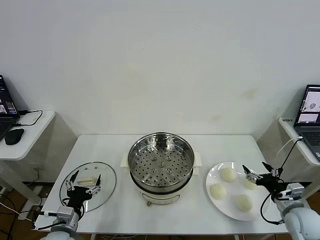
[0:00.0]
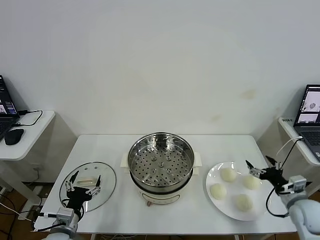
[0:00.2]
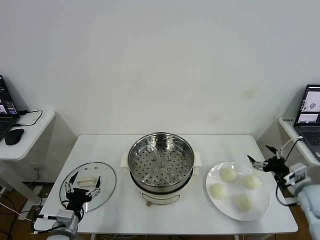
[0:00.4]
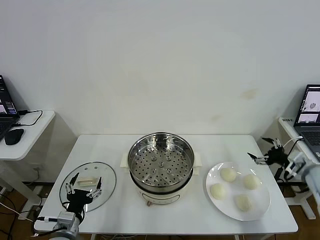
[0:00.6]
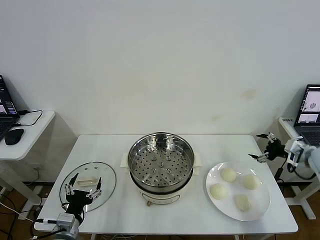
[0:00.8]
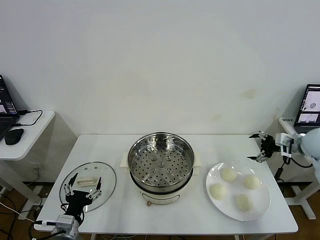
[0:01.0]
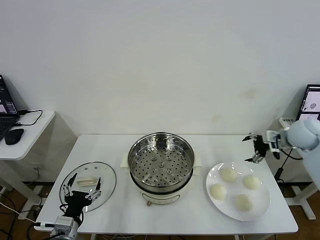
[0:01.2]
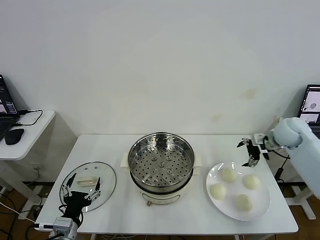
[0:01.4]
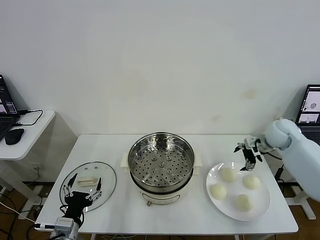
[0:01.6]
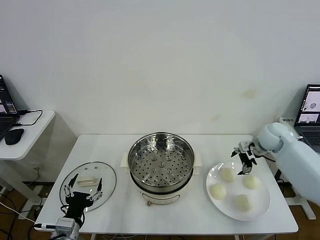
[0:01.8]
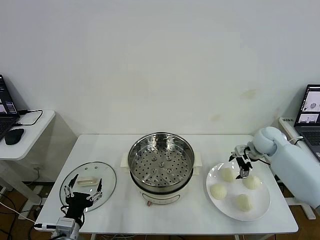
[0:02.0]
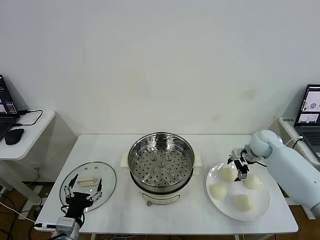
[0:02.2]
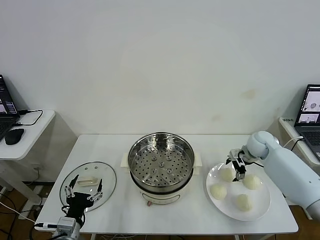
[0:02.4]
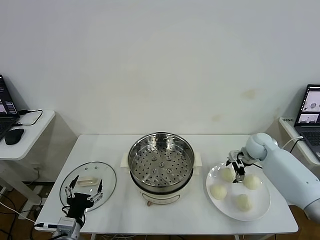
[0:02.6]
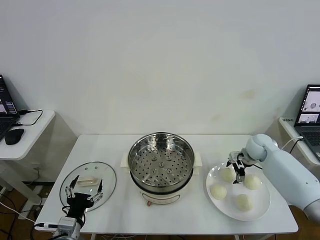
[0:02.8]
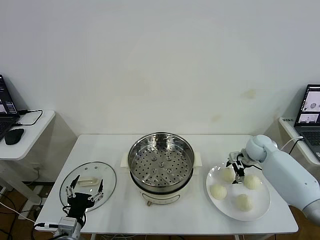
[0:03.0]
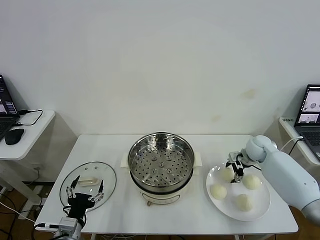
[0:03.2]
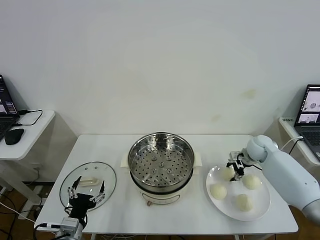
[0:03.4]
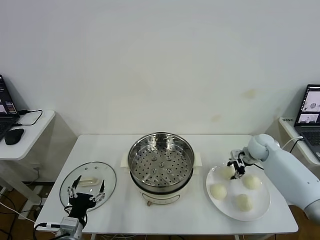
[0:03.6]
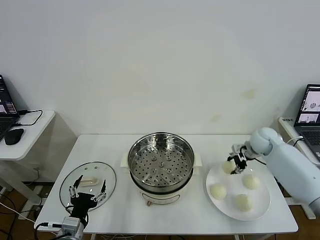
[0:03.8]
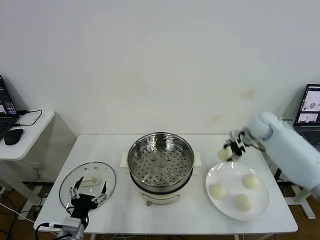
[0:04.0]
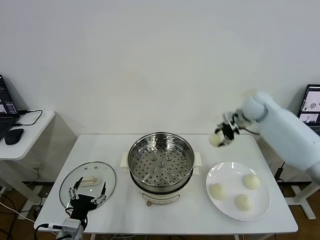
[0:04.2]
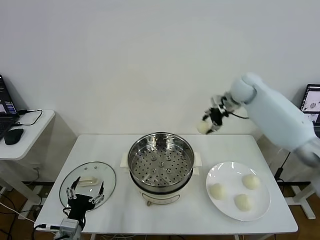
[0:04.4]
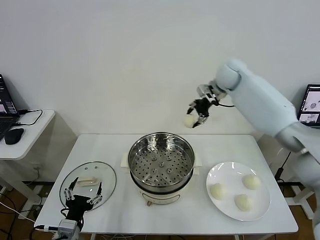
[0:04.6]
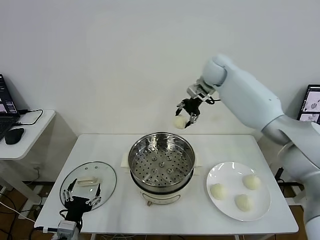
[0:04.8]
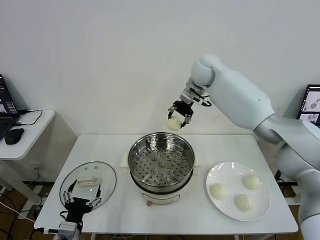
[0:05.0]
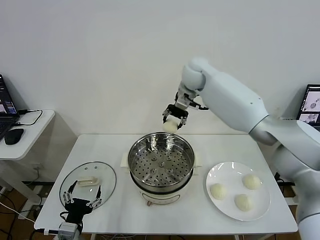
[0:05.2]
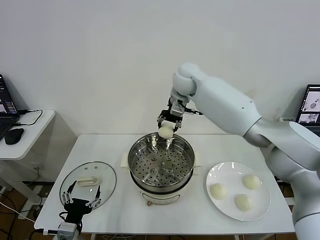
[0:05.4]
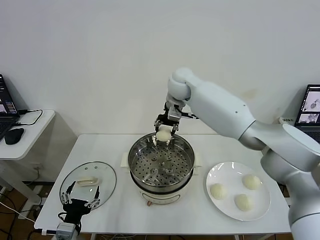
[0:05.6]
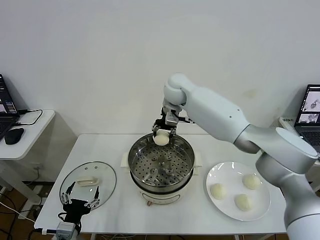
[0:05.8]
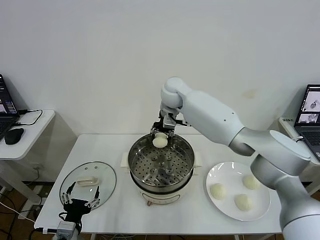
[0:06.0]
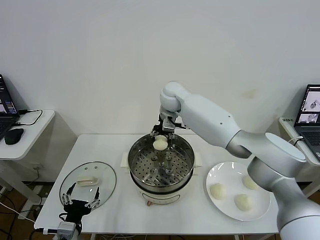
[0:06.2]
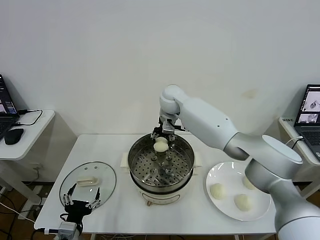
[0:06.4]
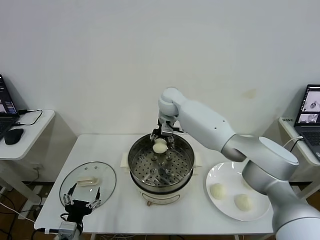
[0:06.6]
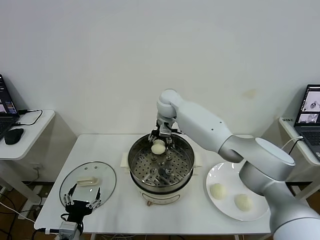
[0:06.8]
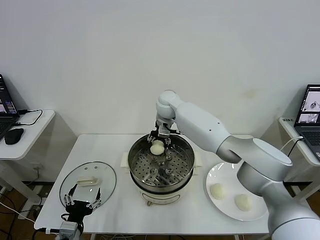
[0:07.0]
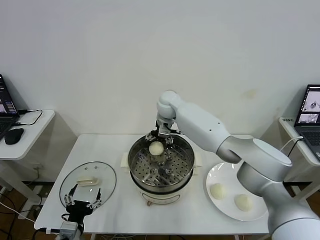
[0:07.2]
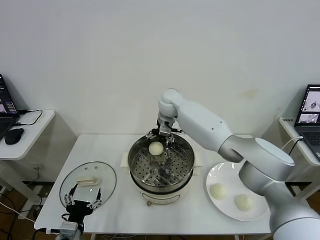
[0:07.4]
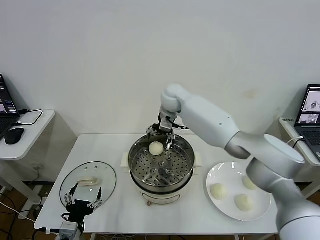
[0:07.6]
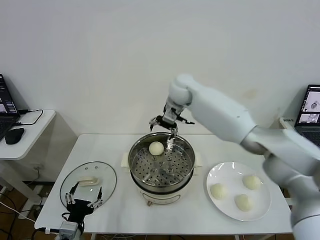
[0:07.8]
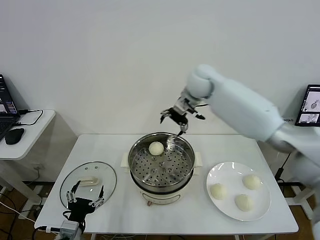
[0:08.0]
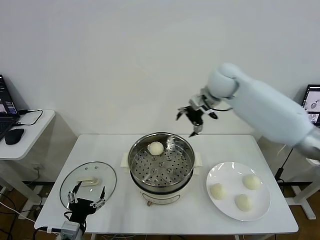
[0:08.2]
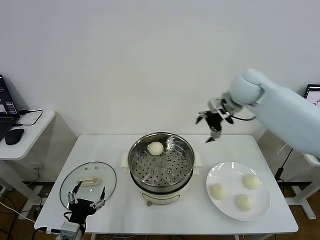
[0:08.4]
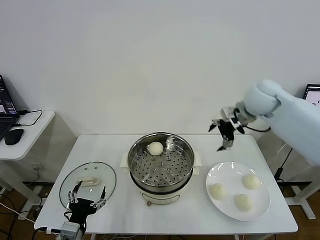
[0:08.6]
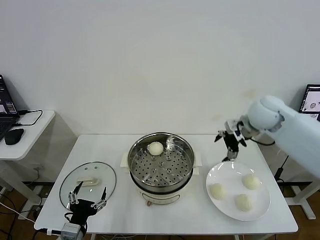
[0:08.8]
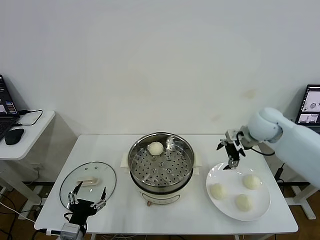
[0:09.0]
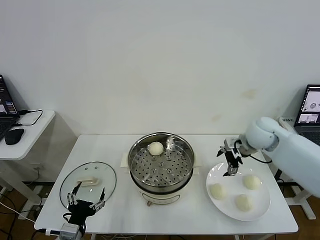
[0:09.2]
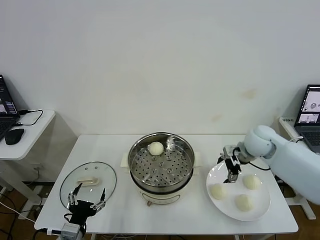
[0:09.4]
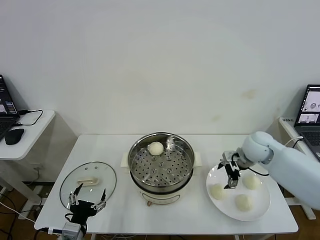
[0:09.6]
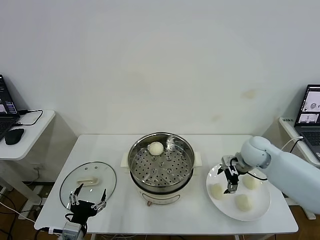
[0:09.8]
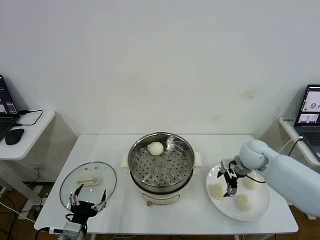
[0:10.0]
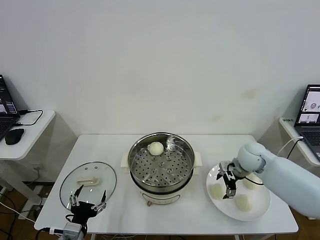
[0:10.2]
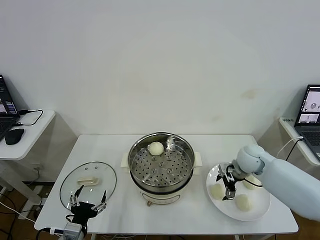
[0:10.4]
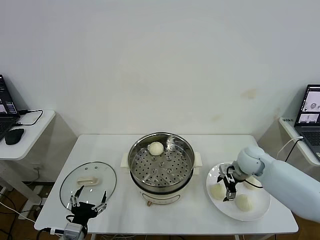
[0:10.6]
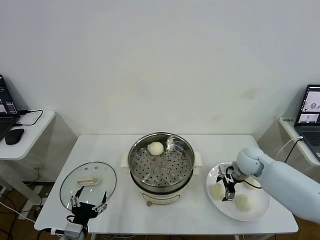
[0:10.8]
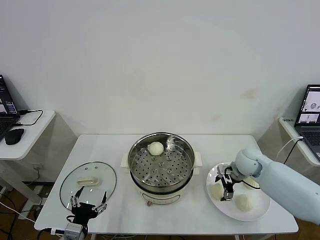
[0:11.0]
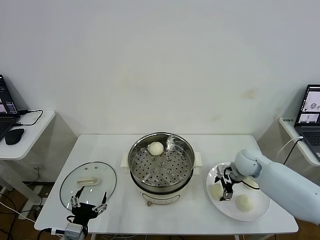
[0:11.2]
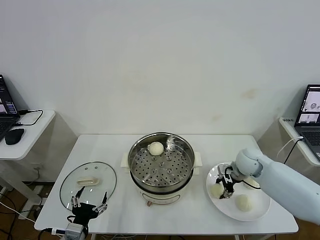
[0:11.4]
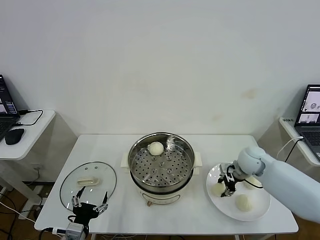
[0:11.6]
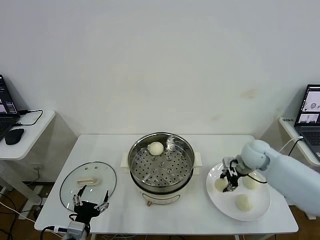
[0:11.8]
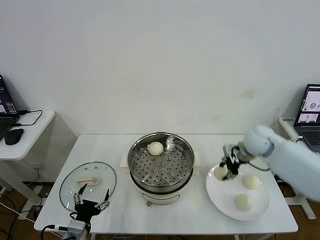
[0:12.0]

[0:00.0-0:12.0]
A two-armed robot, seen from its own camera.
Task of the whole recording: take steamed baozi put them in steamer then cover it.
Step, 0:00.0 to 0:03.4: Grasp the baozi in the plate with right gripper.
Step, 0:03.6 to 0:07.4: Place the baozi on the steamer with right gripper.
Step, 0:07.6 to 0:11.4: Grasp the baozi in the plate with right gripper.
0:01.6 to 0:03.0: The right gripper shifts some 10 cm downward.
0:03.0 to 0:04.4: The right gripper goes roughly 25 cm upward, to the left and forward, and closes its fingers.
0:04.4 to 0:06.0: The right gripper heads to the left, covering roughly 25 cm.
0:06.0 to 0:07.6: The right gripper opens its fingers.
0:07.6 to 0:09.0: The right gripper goes approximately 30 cm to the right and backward.
0:09.0 to 0:10.4: The right gripper heads downward, covering roughly 15 cm.
0:10.4 to 0:12.0: The right gripper travels upward by about 10 cm, and closes.

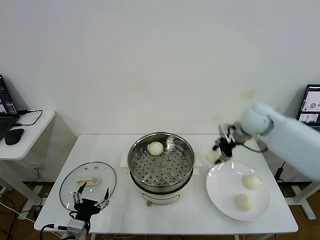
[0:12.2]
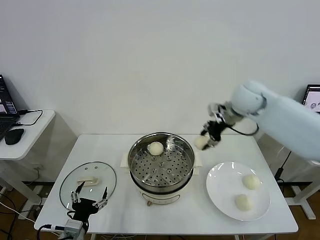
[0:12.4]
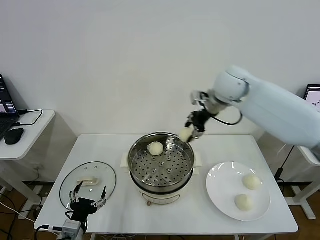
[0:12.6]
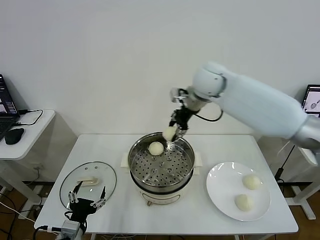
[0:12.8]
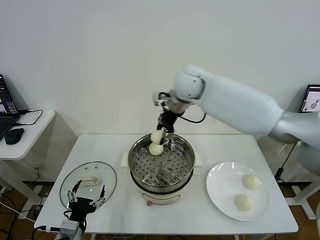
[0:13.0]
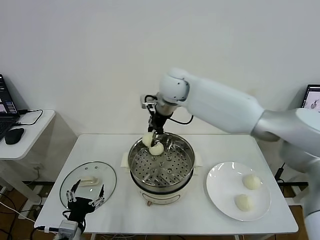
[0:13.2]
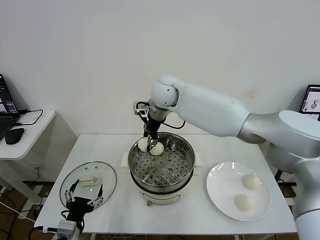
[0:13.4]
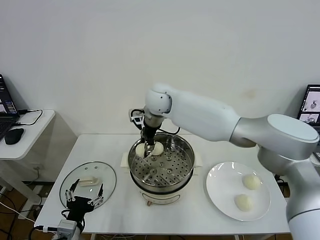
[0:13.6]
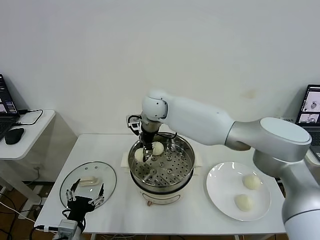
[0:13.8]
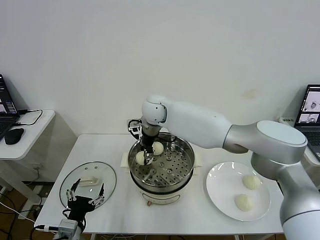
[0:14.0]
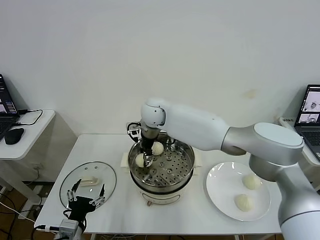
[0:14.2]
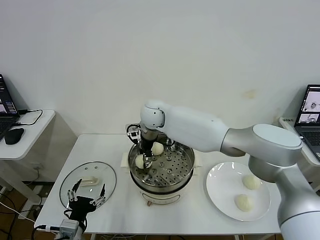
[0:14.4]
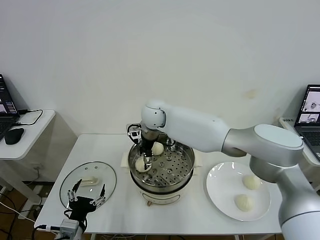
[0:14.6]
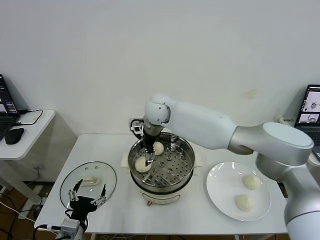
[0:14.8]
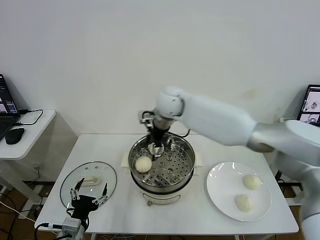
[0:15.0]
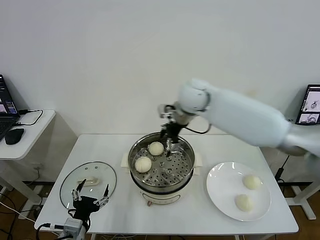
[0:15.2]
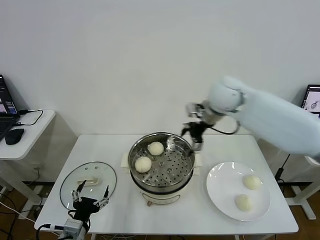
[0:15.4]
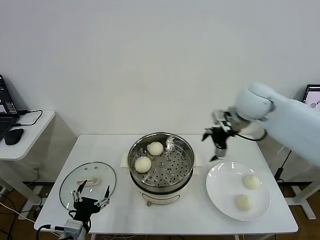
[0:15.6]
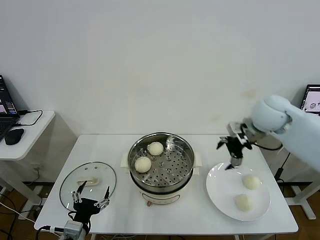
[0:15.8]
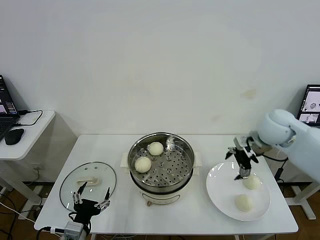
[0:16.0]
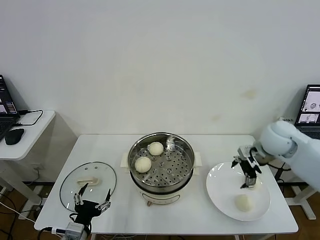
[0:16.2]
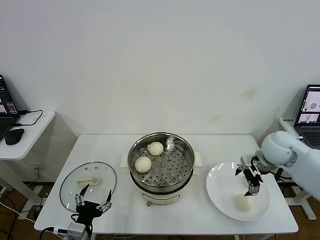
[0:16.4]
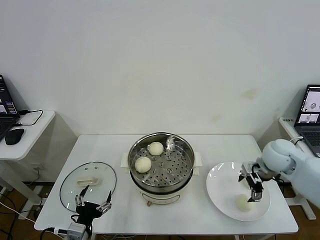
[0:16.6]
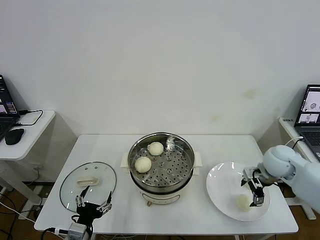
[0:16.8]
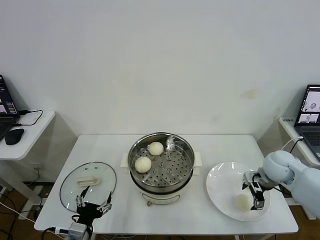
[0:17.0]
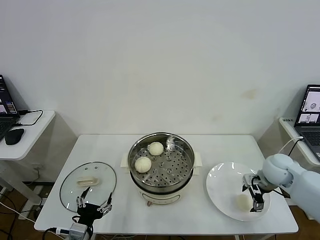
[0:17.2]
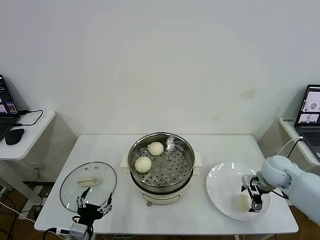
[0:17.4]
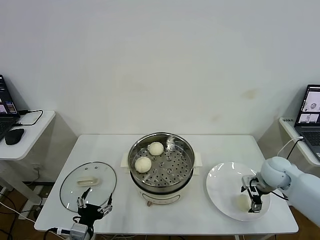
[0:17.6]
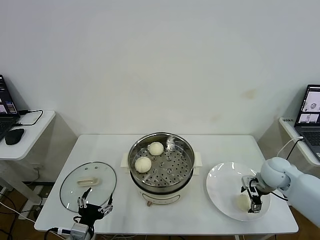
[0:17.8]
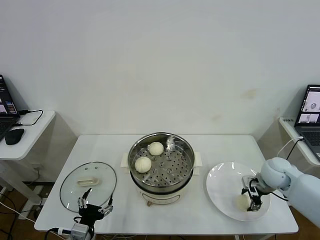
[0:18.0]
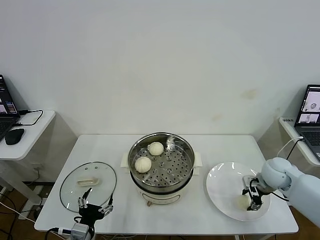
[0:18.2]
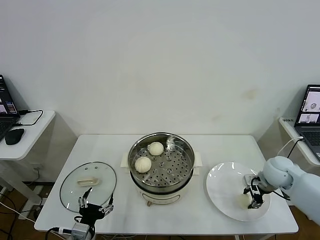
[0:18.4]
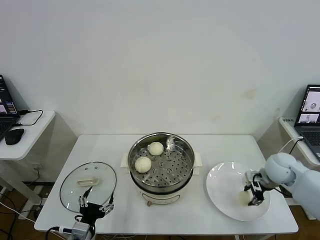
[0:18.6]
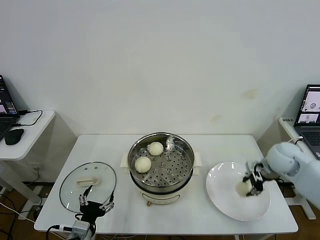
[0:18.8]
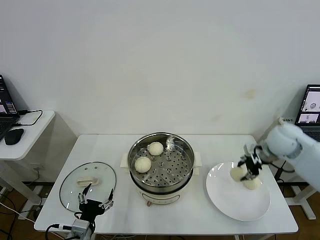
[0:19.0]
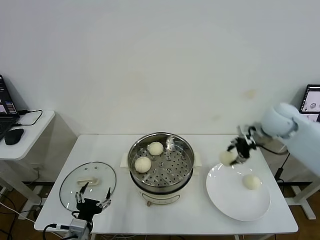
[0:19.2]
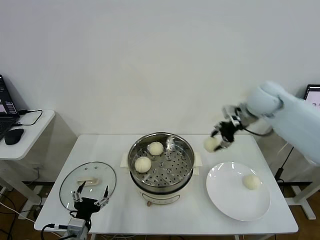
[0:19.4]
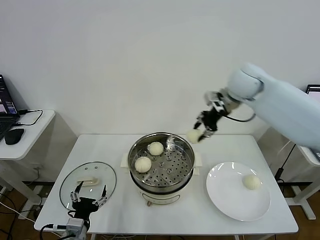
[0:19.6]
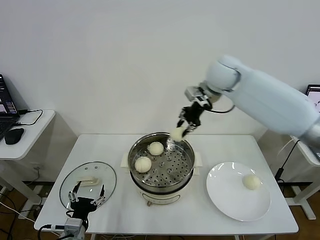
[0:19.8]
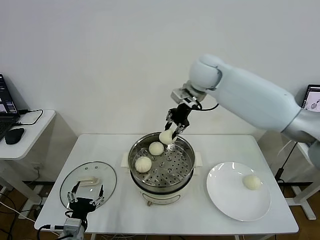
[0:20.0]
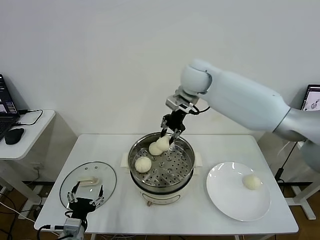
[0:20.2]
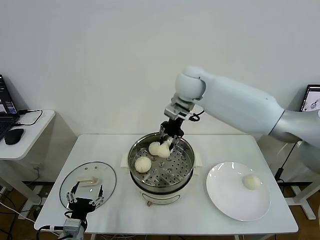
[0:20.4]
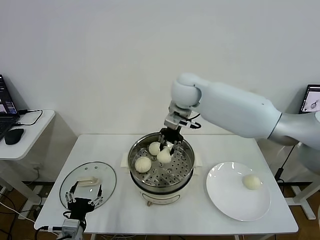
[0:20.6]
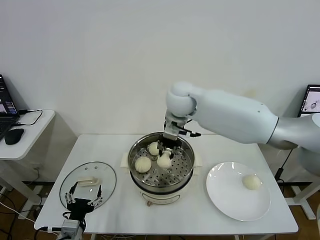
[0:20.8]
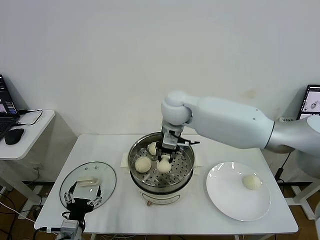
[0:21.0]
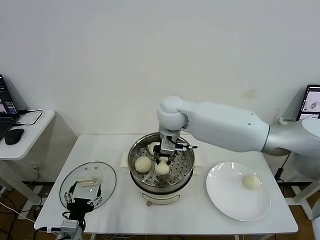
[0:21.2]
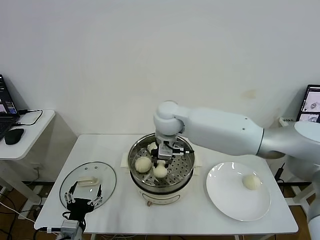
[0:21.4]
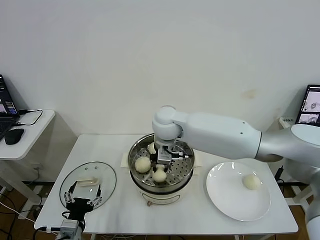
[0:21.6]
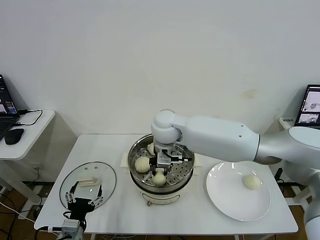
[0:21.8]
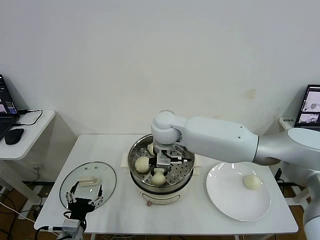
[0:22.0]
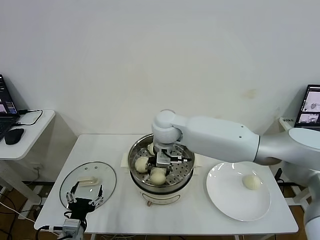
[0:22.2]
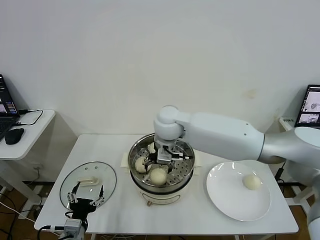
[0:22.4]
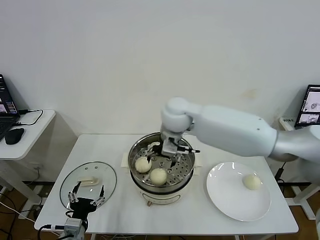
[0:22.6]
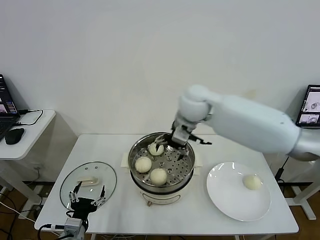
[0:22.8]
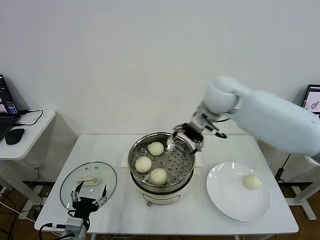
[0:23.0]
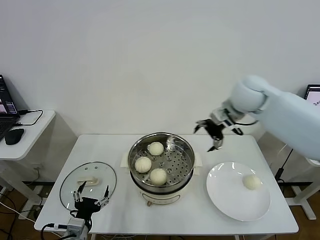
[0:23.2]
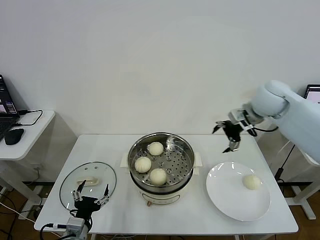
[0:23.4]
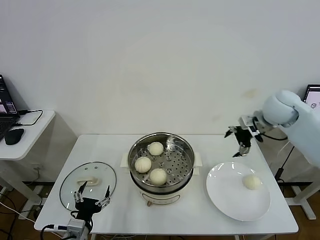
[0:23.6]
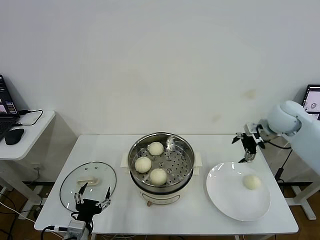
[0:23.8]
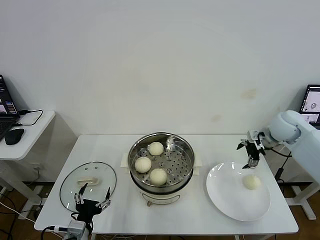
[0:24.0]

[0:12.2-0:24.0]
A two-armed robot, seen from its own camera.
Task of the whole recording: take steamed baozi put them in steamer then cover it.
Step, 0:12.2 to 0:14.6: Place the baozi on the steamer with right gripper.
Step, 0:14.8 to 0:18.4: Grasp the baozi in the plate with right gripper.
Step, 0:18.6 to 0:22.2: Place the baozi on the steamer with right gripper.
0:12.2 to 0:13.6: The right gripper travels to the left by some 30 cm.
0:13.6 to 0:15.2: The right gripper is displaced to the right by about 10 cm, and opens.
0:15.2 to 0:16.6: The right gripper heads to the right, downward and backward, covering some 30 cm.
0:16.6 to 0:18.2: The right gripper moves downward, some 5 cm, and closes its fingers.
0:18.2 to 0:19.6: The right gripper goes some 35 cm upward, to the left and forward, and closes its fingers.
0:19.6 to 0:21.0: The right gripper goes roughly 20 cm to the left.
0:21.0 to 0:22.6: The right gripper opens its fingers.
0:22.6 to 0:24.0: The right gripper heads to the right, covering roughly 35 cm.
